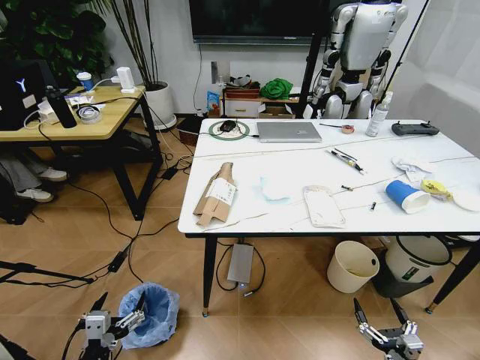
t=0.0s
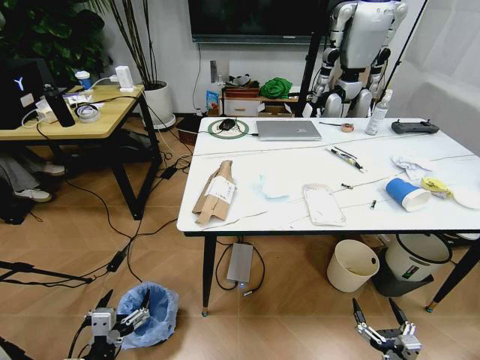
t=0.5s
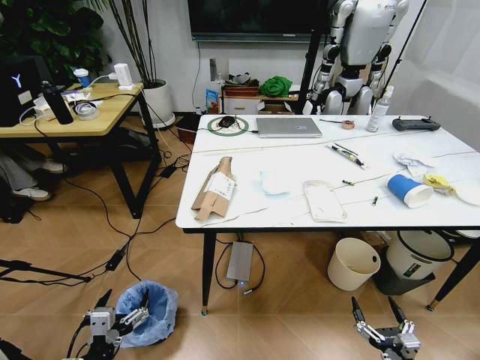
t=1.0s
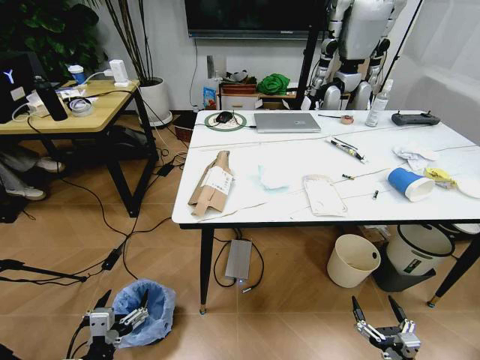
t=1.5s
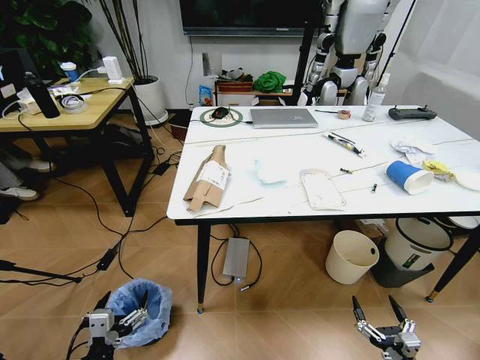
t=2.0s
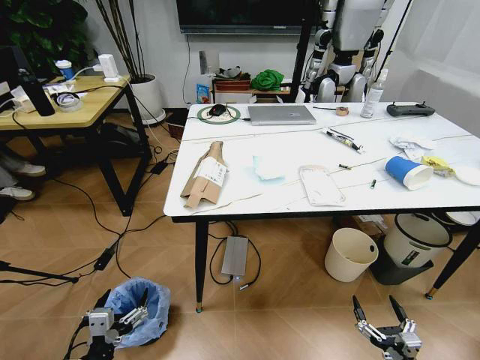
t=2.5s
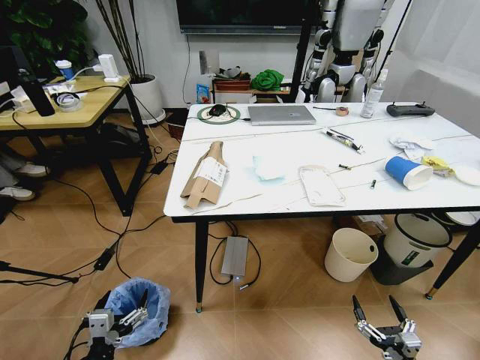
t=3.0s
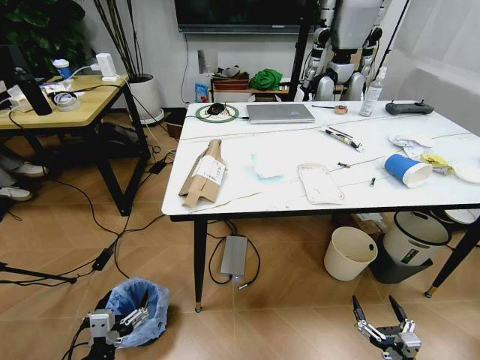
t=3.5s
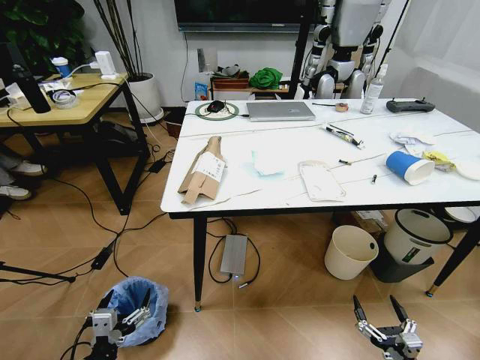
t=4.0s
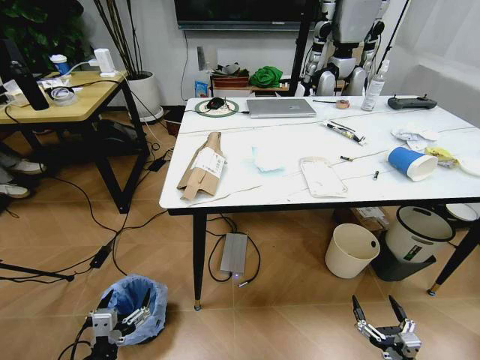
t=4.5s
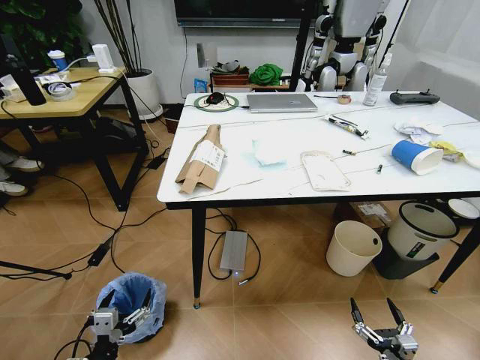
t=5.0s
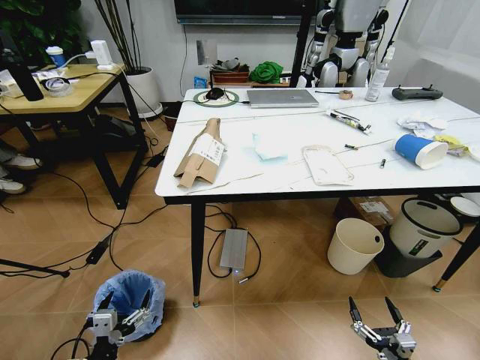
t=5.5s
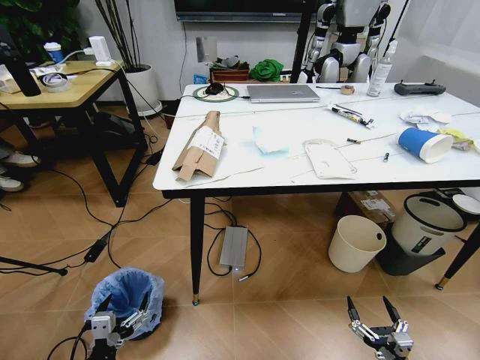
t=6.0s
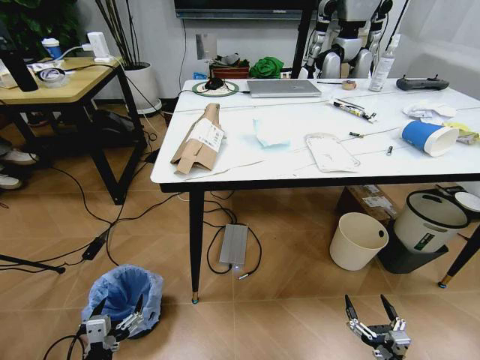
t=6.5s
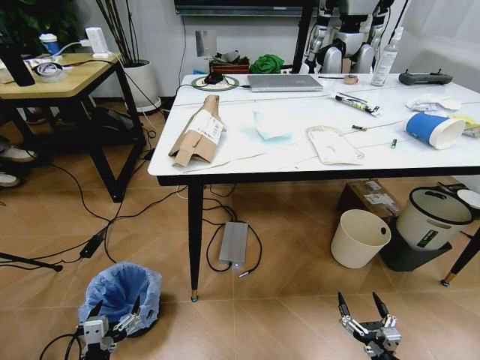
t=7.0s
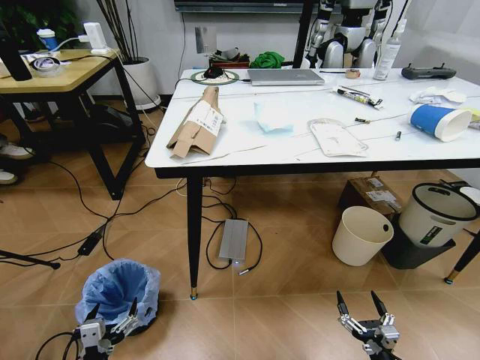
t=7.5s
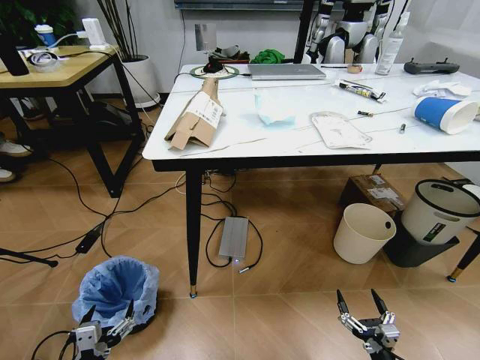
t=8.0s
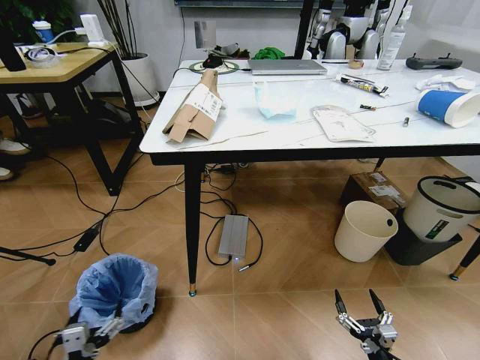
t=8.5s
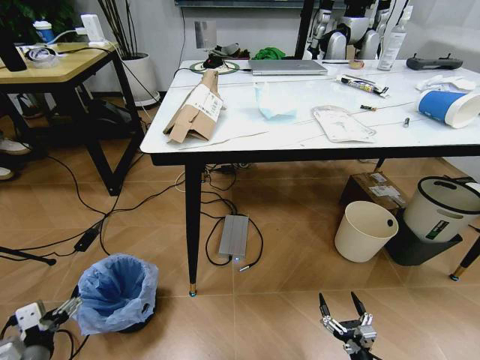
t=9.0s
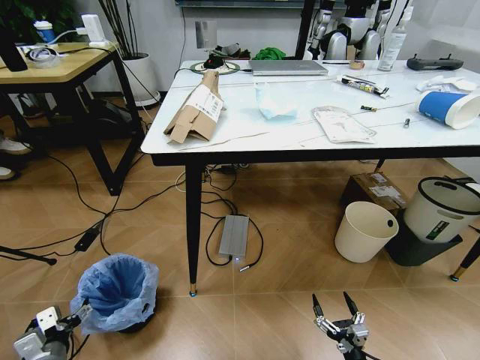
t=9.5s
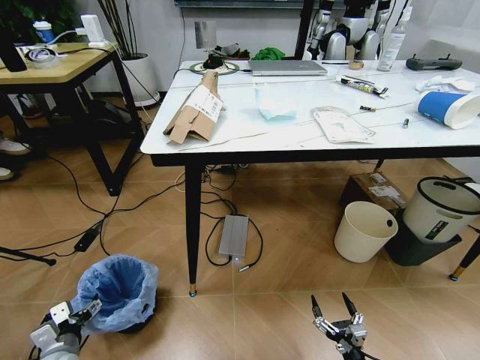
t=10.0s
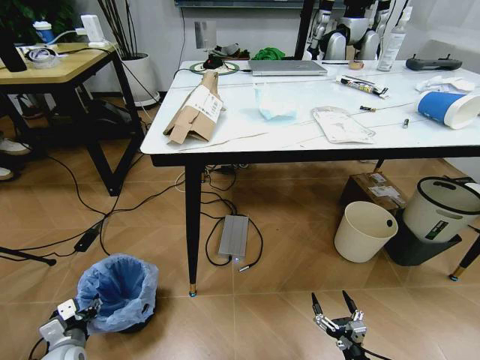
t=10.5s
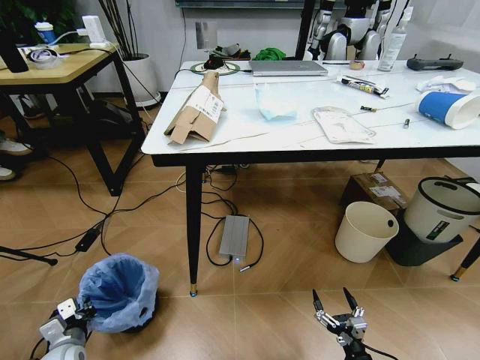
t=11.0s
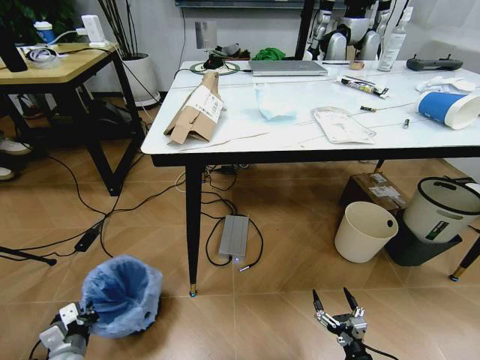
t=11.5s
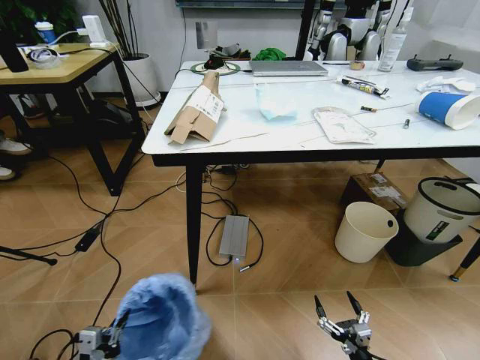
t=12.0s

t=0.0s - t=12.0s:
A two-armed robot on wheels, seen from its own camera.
Task of the whole recording: Pick up the trash bin and place the trash from the table into it.
t=8.0s - t=10.0s: The left gripper is displaced forward, to the left and downward by roughly 15 cm. Meanwhile the right gripper changes place by roughly 5 cm.
t=10.0s - t=12.0s: The left gripper heads backward, covering approximately 10 cm, and closes.

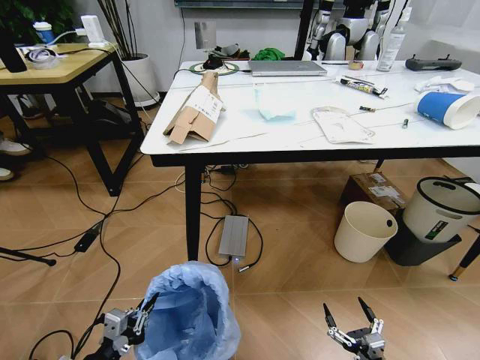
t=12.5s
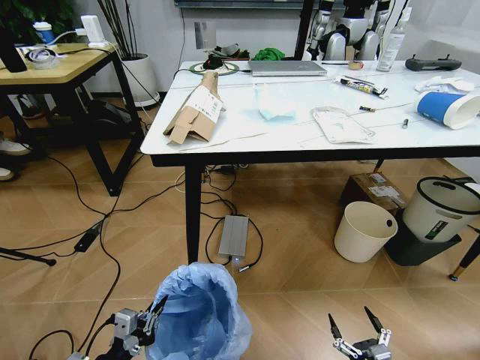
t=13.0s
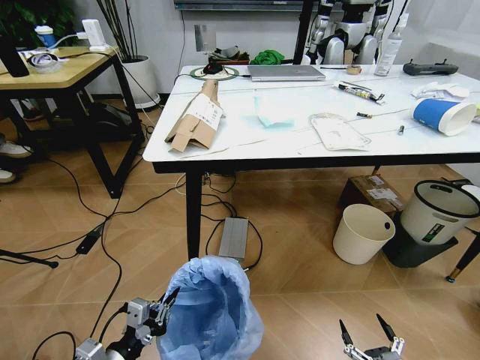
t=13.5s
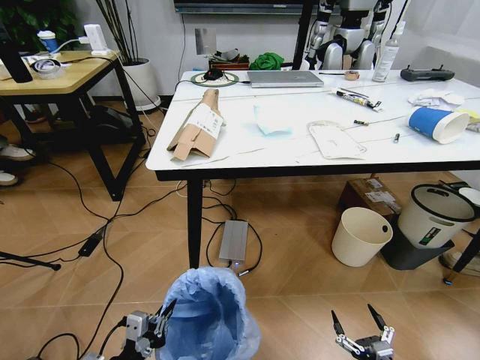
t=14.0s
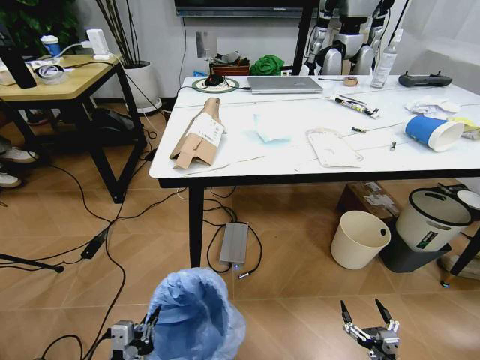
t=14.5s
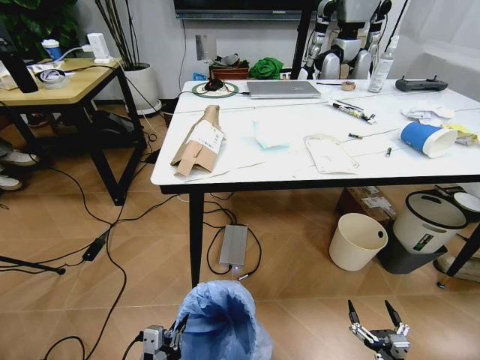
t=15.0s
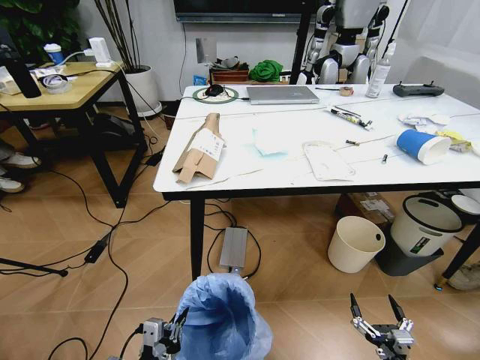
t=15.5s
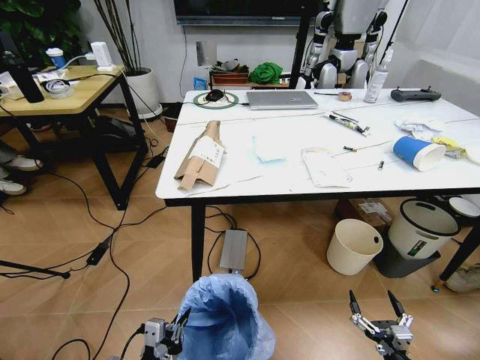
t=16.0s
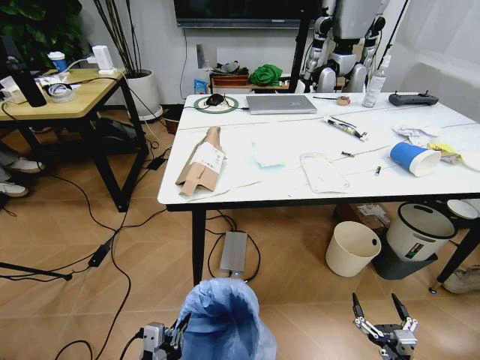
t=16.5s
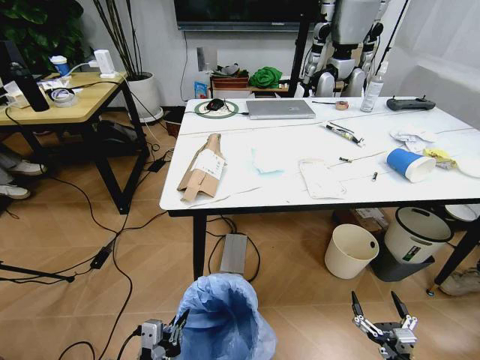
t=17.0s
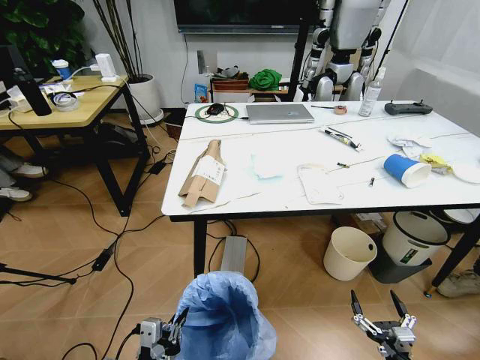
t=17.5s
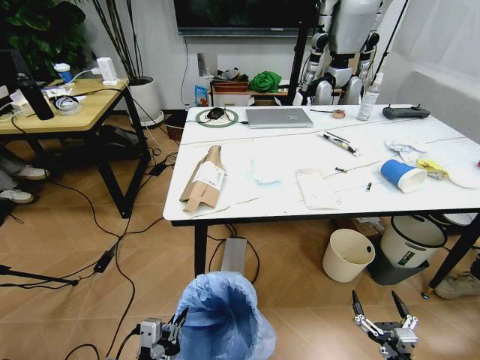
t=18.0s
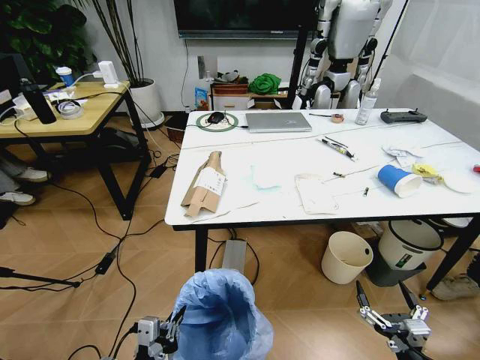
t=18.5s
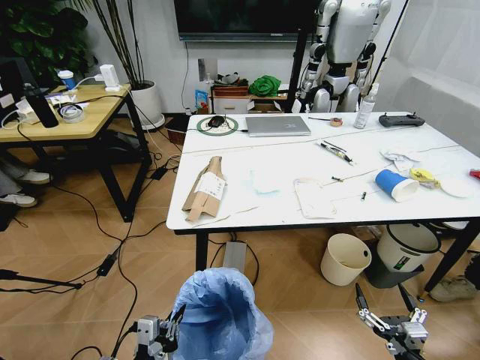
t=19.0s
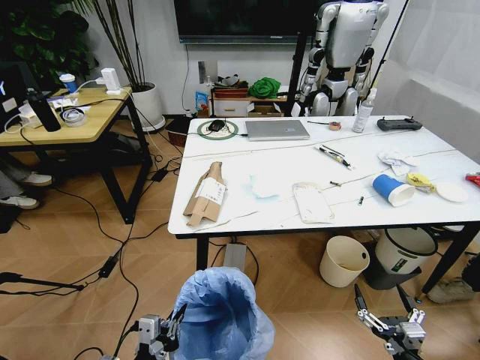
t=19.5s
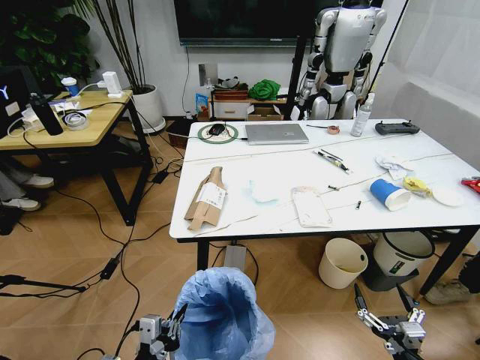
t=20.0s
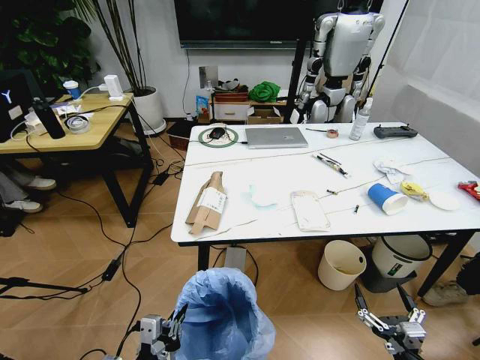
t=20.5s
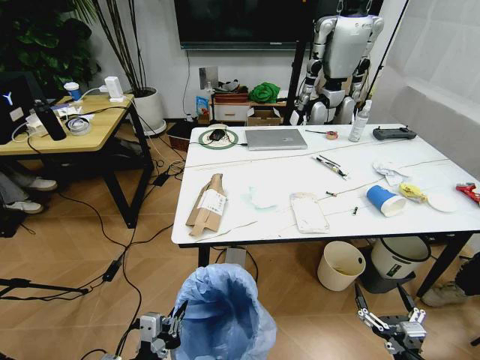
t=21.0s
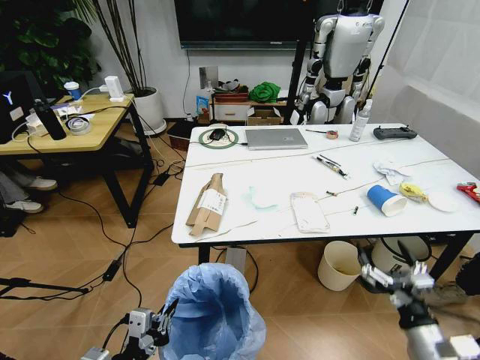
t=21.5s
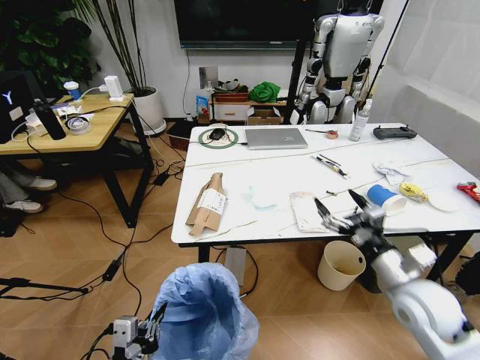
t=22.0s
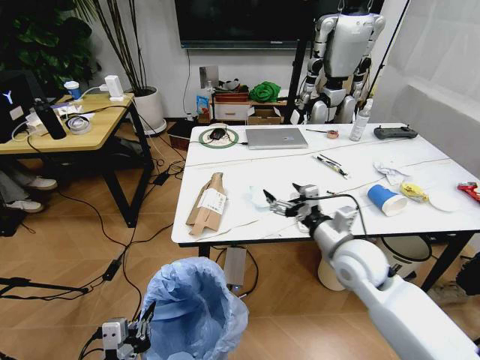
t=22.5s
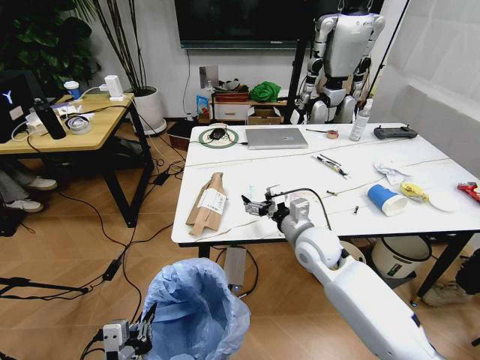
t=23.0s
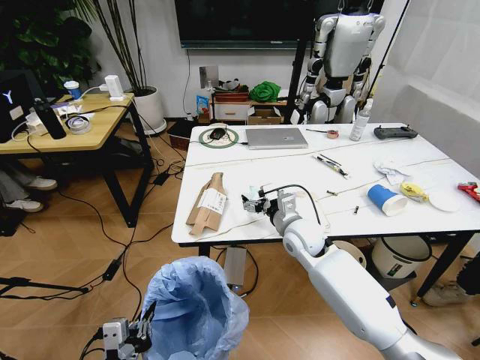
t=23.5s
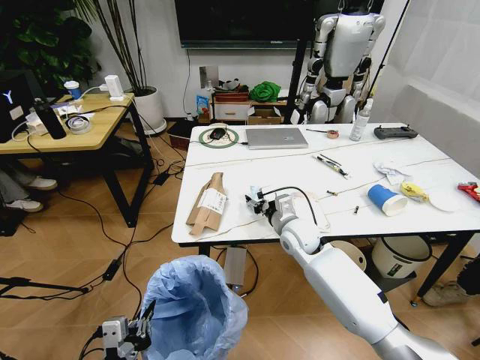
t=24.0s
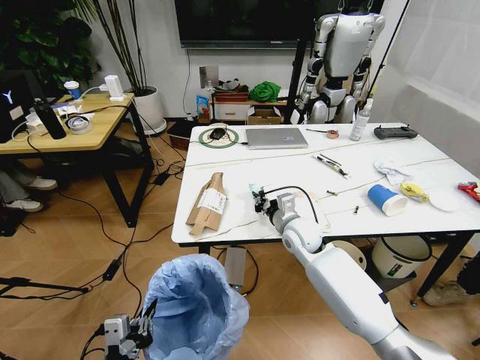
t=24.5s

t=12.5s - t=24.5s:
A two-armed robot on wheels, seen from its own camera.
Task of the whole recording: Pick up the trash bin and place the trash from the table into it.
t=16.5s - t=18.5s: The right gripper travels upward by approximately 5 cm.
t=20.5s - t=22.5s: The right gripper travels forward, upward and to the left by some 35 cm.
t=22.5s - t=24.5s: The right gripper shifts about 15 cm forward, to the left and downward, and closes.

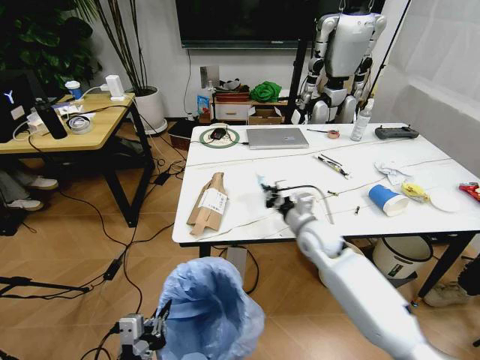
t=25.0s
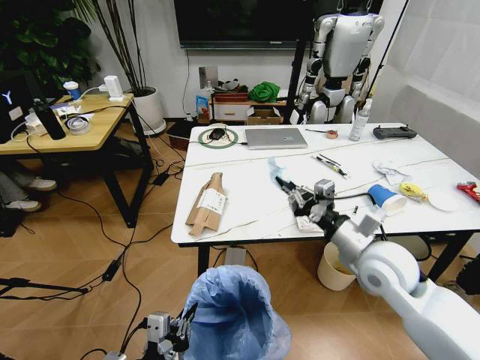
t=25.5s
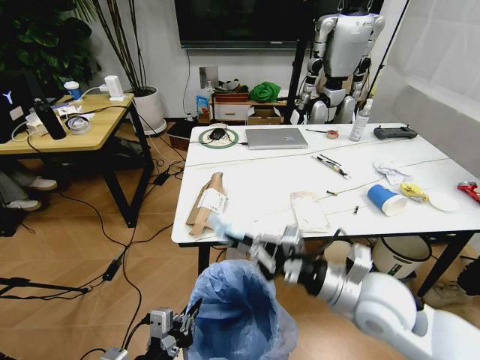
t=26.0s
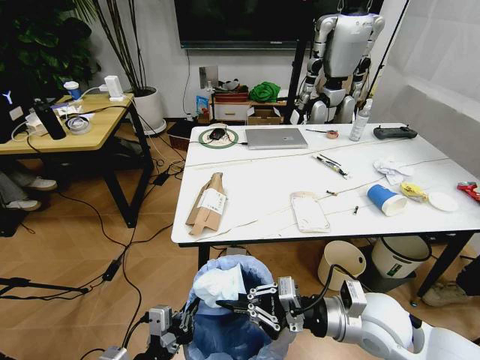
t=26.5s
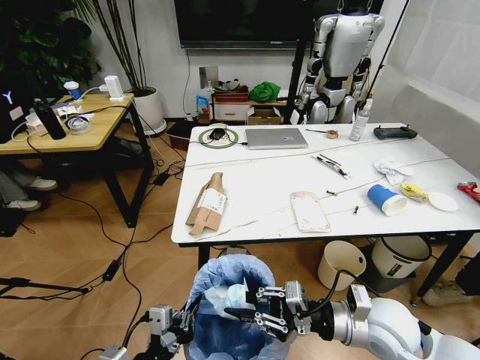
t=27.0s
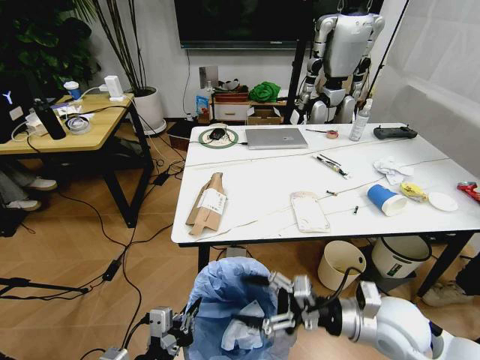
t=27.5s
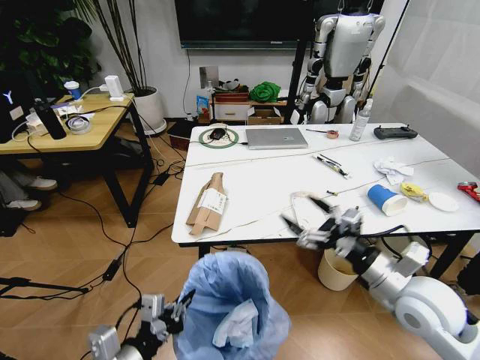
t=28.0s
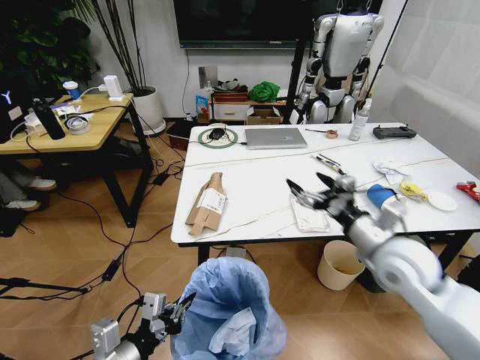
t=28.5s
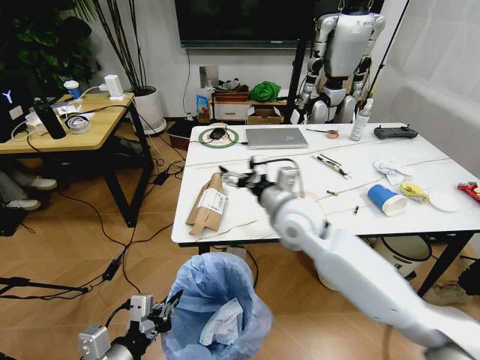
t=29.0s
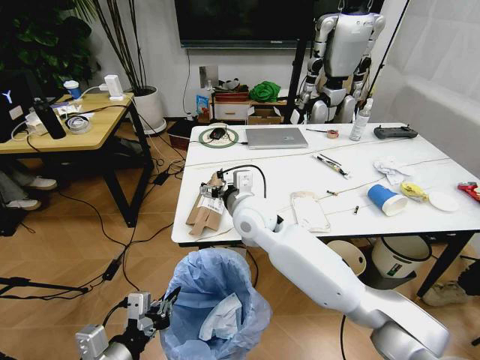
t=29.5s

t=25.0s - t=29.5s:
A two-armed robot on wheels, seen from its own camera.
Task of the whole recording: Pick up the trash bin and place the trash from the table into it.
t=25.0s - t=27.0s: The right gripper shifts some 20 cm backward.
t=27.0s - t=29.5s: The right gripper travels to the left and forward by roughly 30 cm, and opens, while the left gripper moves about 5 cm.
